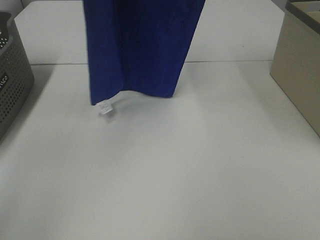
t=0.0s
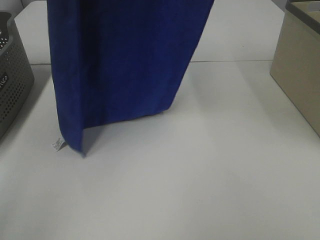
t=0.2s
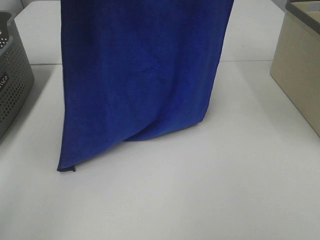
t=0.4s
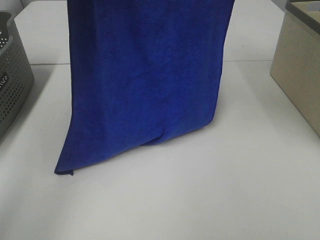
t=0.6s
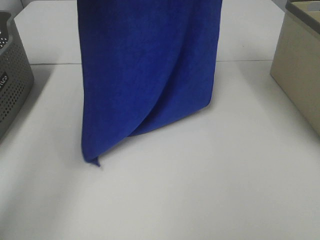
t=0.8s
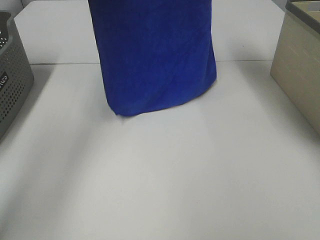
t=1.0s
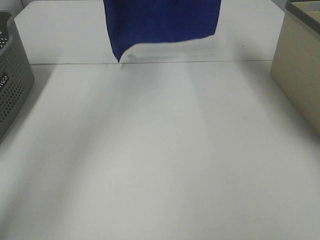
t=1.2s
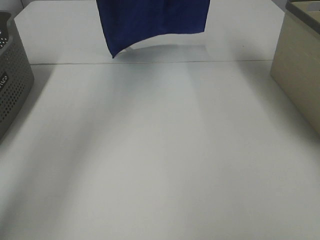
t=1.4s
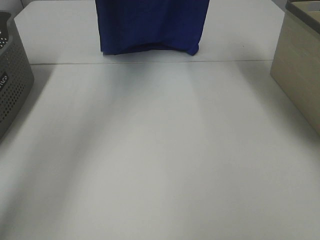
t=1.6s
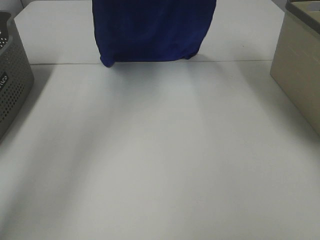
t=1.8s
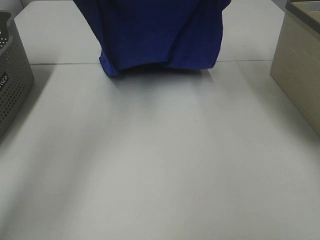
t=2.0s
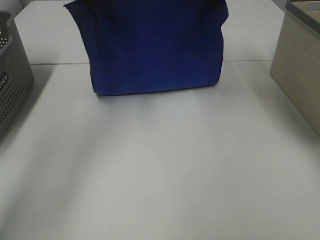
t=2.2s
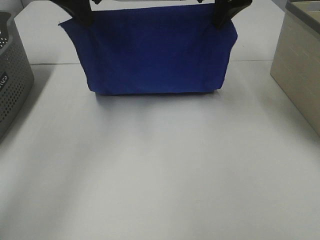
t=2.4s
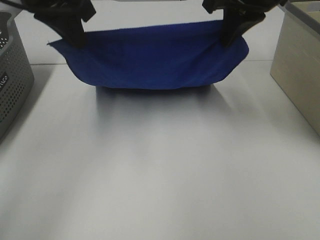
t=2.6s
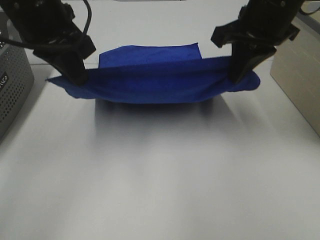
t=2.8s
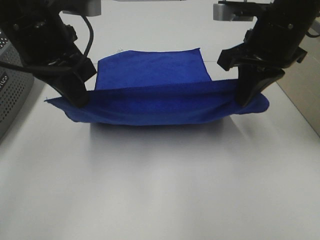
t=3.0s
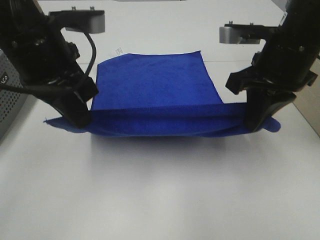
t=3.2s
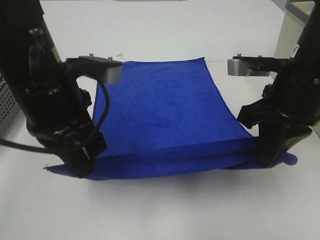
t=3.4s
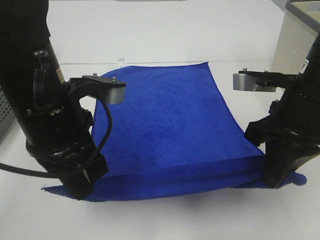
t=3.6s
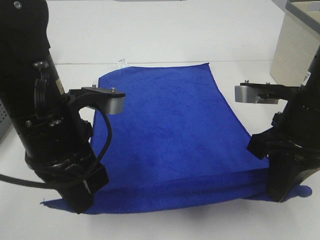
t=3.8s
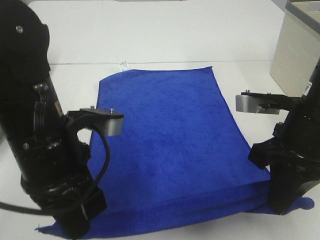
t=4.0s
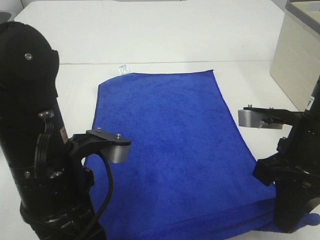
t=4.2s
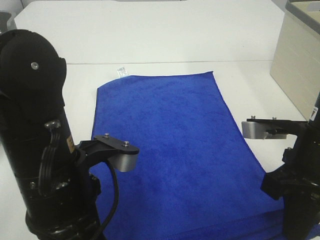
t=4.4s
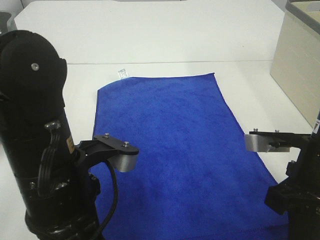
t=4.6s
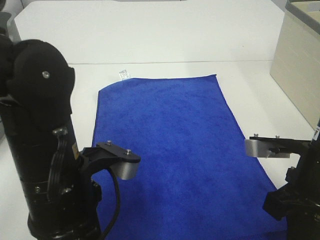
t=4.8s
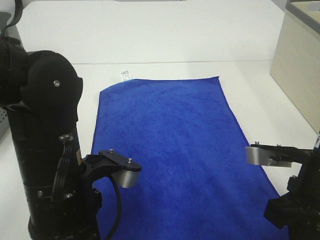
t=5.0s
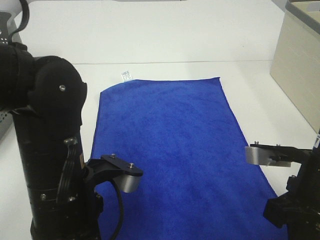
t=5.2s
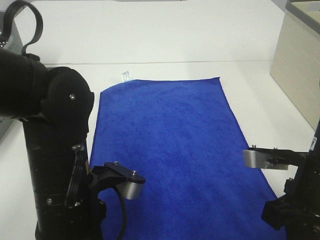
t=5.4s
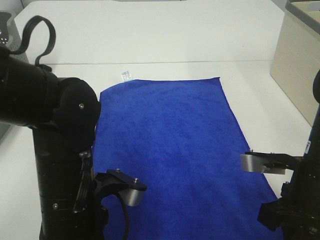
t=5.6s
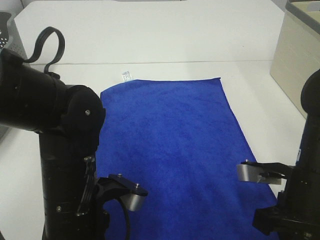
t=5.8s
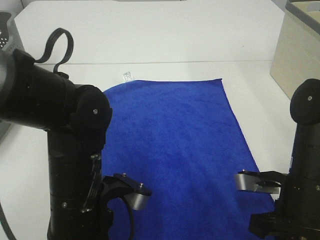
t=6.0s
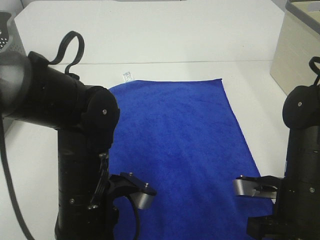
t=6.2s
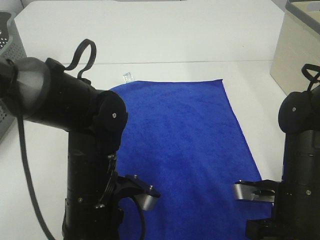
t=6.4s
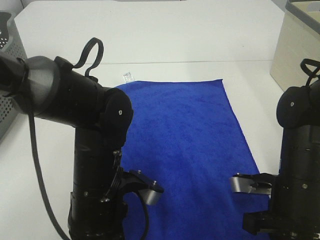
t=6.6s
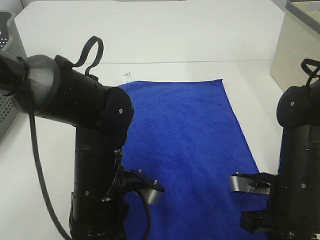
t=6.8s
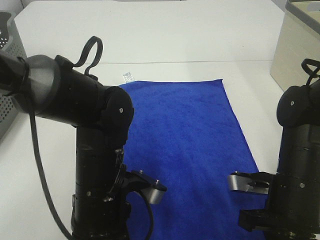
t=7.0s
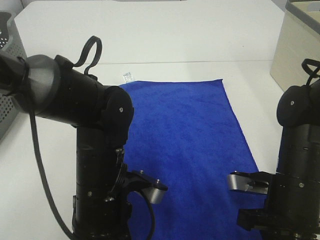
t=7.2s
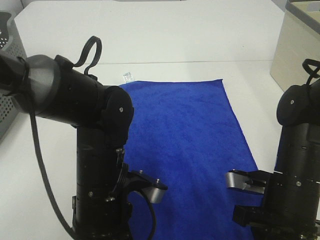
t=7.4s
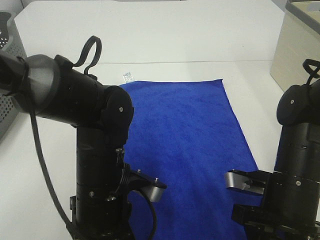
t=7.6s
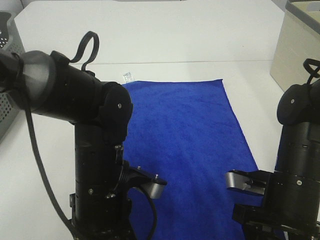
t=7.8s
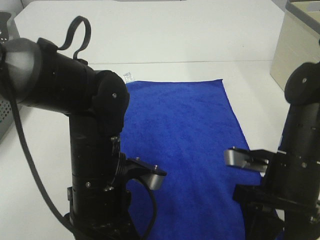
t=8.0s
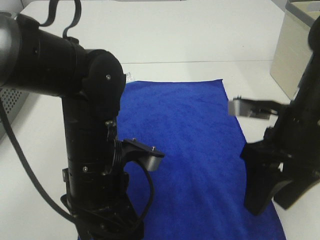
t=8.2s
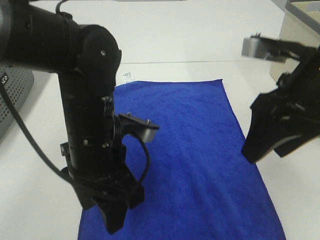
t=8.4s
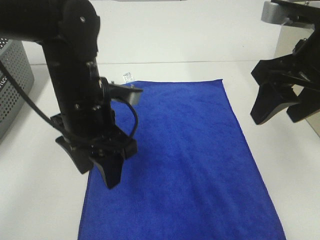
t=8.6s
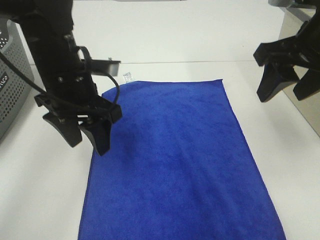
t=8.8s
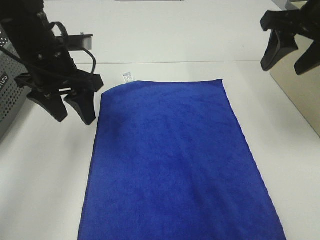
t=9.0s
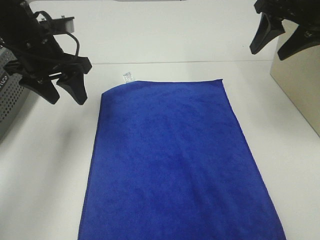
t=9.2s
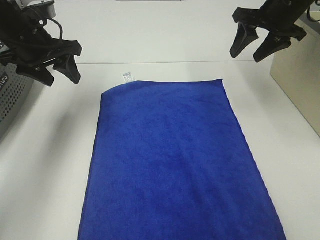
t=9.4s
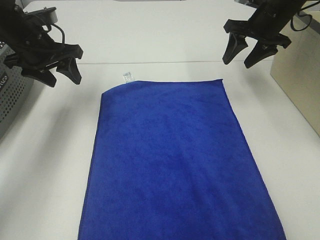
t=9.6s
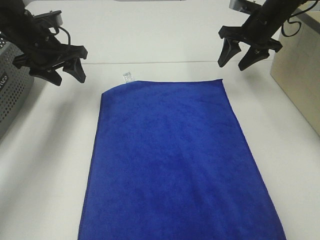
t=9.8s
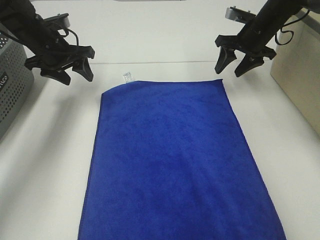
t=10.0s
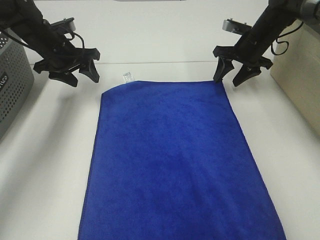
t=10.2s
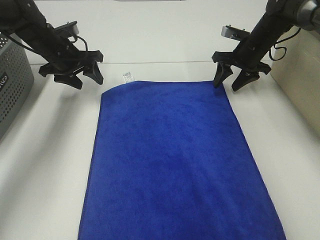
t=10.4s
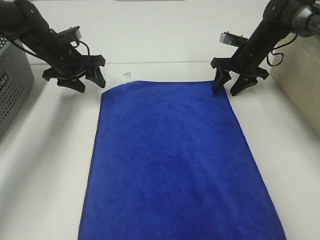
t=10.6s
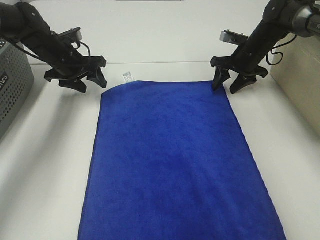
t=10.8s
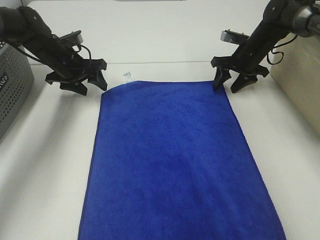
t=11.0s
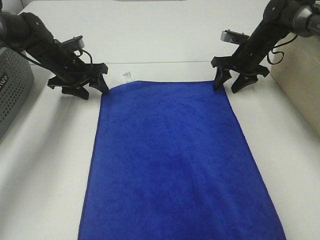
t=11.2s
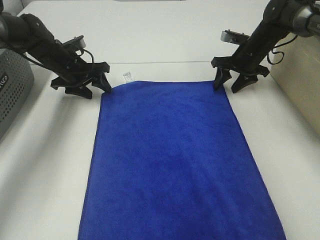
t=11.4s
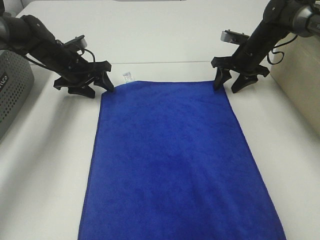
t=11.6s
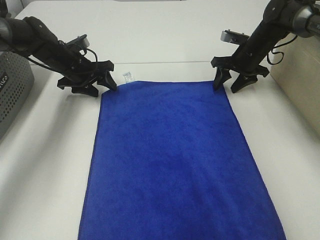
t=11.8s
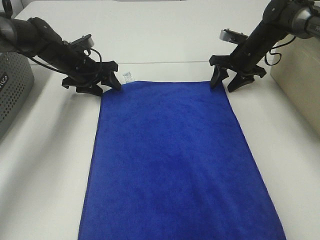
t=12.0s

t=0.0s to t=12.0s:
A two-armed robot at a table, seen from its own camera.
Task of the whole recording: Remove the towel and place it.
Step, t=0.0s to t=2.6s: Left hand: spread the blue towel flat on the table.
Step, t=0.0s to t=2.6s: Right hand: spread the blue towel flat on the table.
Step, t=2.8s to t=10.0s: Left hand:adjust the blue towel.
Step, t=2.8s to t=10.0s: Right hand:adjust the blue towel.
t=0.0s to t=1.6s: The right gripper shifts some 20 cm forward and downward. The left gripper goes about 20 cm downward and forward.
t=1.6s to t=3.0s: The two grippers go roughly 25 cm backward and downward.
t=3.0s to t=4.4s: Both grippers move backward and downward, approximately 15 cm.
t=4.4s to t=6.0s: Both grippers travel together downward, roughly 5 cm.
t=6.0s to t=7.6s: The right gripper opens, while the left gripper opens.
t=7.6s to t=9.0s: The left gripper is displaced forward, to the left and upward by about 20 cm, while the right gripper is displaced upward and forward by roughly 25 cm.
t=9.0s to t=10.4s: The right gripper heads forward and downward, covering about 25 cm. Meanwhile the left gripper heads forward and downward, covering approximately 15 cm.
t=10.4s to t=12.0s: The left gripper ends up some 5 cm from where it was.

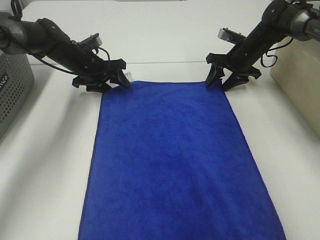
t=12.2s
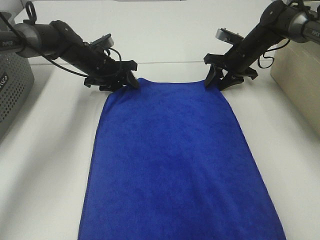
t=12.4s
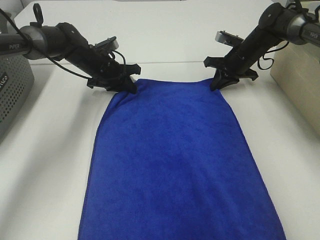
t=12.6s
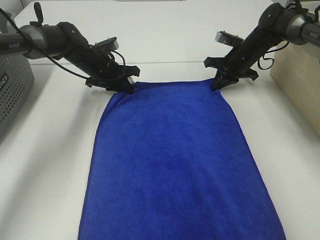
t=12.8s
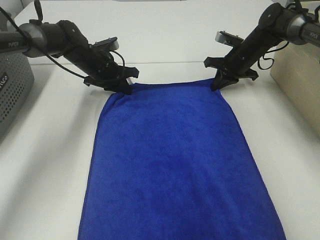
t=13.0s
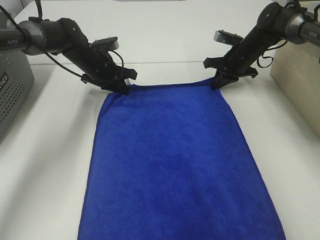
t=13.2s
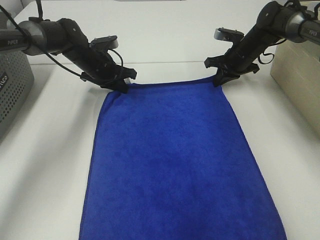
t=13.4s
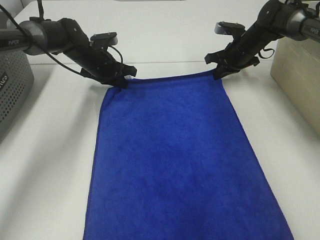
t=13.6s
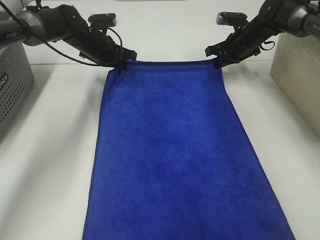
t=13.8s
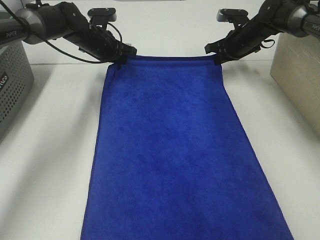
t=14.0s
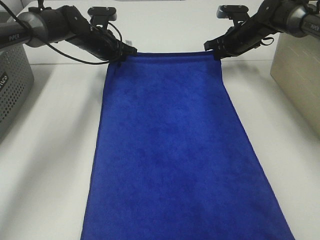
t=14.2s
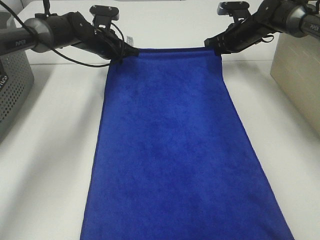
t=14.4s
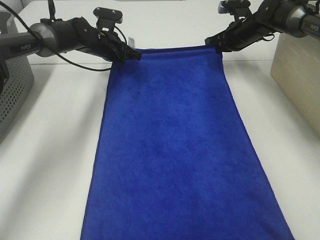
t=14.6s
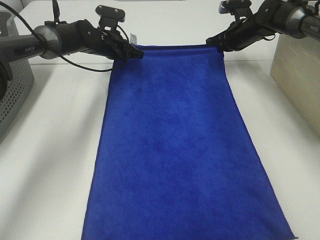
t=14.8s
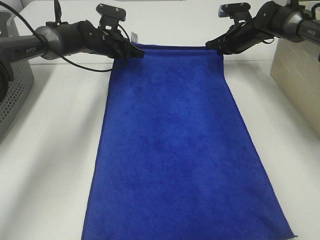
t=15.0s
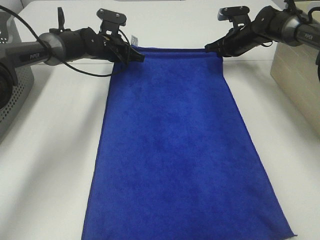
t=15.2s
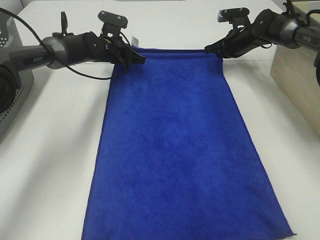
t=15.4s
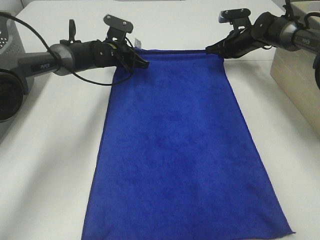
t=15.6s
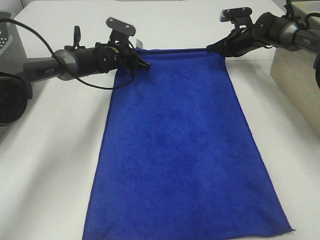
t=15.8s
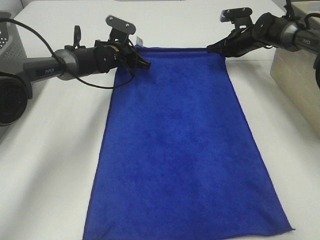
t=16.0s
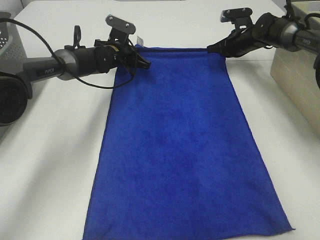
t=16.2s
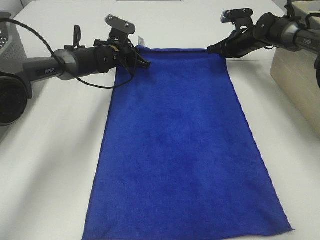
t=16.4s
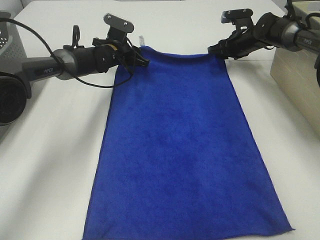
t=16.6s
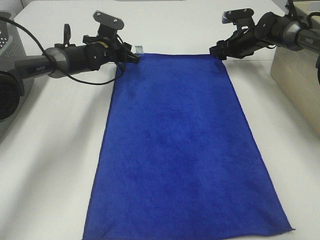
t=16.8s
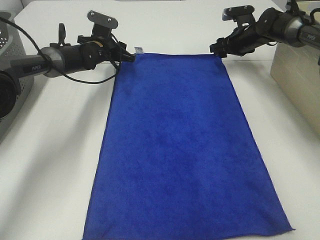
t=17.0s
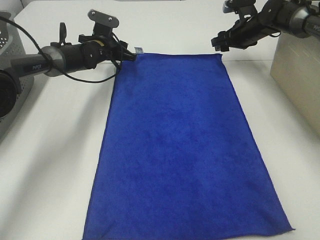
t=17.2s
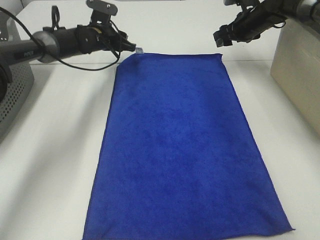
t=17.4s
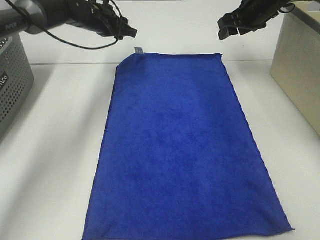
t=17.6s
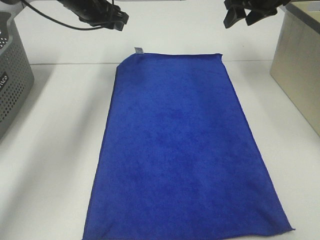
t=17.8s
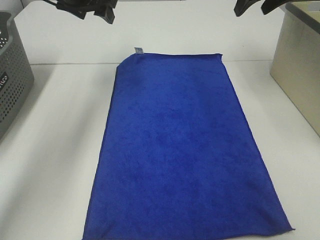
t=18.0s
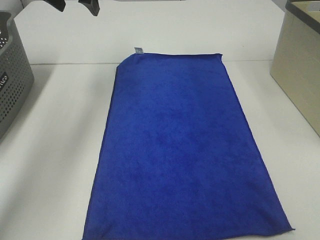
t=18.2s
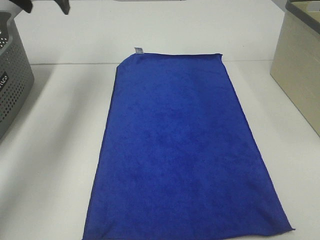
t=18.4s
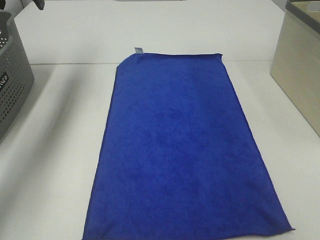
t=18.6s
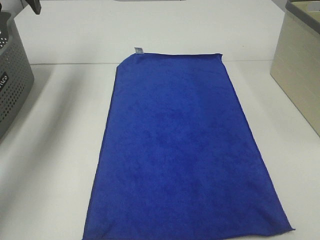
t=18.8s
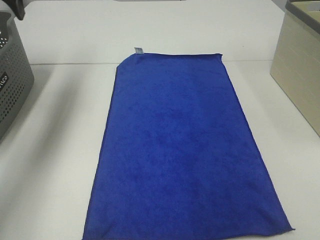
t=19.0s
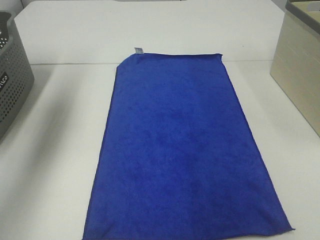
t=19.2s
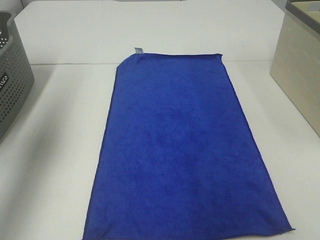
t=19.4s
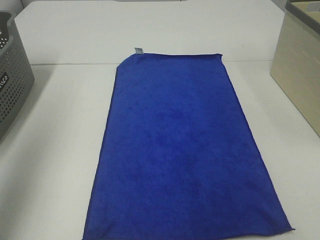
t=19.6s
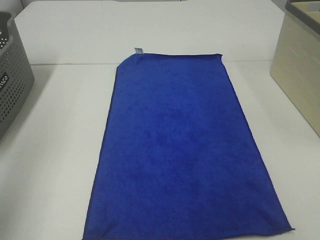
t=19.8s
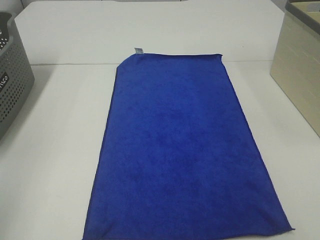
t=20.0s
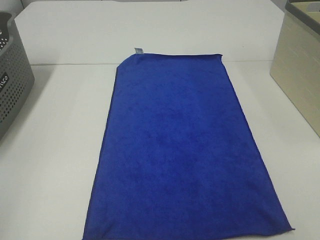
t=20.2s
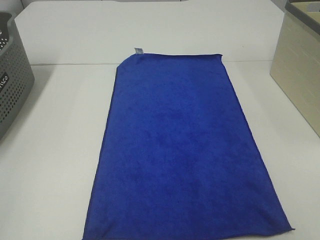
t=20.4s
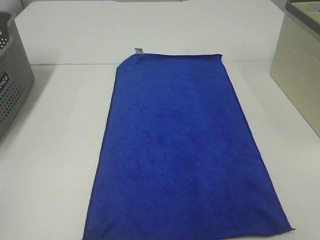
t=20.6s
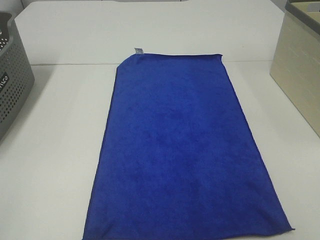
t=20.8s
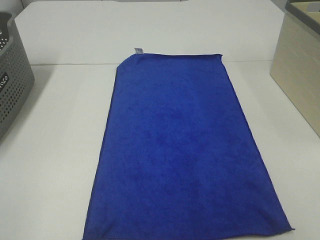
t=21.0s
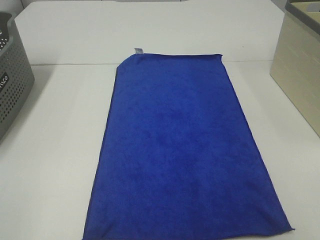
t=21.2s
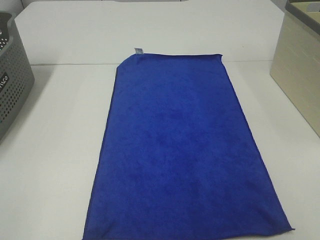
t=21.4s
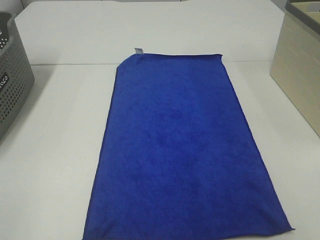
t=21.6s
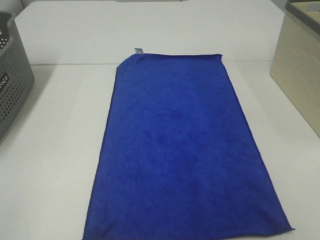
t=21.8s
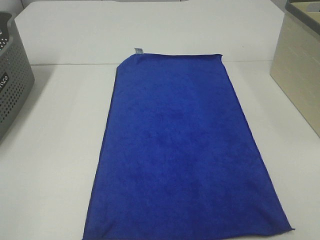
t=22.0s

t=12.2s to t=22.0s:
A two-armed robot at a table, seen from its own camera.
Task of the whole recording: Remove the towel and place it.
t=12.2s to t=13.6s: The left gripper closes its fingers. Meanwhile the right gripper closes its fingers.
t=15.0s to t=16.4s: The grippers move only a little.
t=16.4s to t=17.8s: The left gripper is displaced upward by approximately 15 cm, while the right gripper shifts roughly 20 cm upward and backward, and opens.
t=17.8s to t=19.2s: The left gripper goes about 25 cm backward, to the left and upward; the right gripper shifts about 30 cm backward and upward.
t=19.2s to t=20.6s: The left gripper moves backward, roughly 35 cm.
